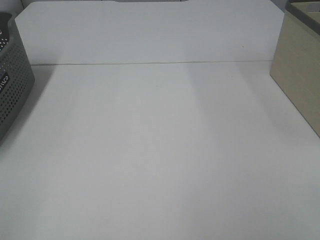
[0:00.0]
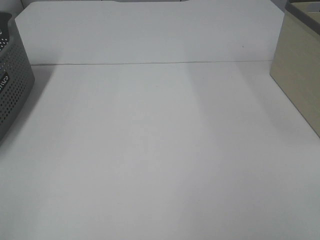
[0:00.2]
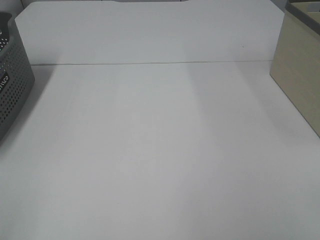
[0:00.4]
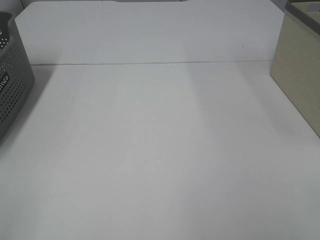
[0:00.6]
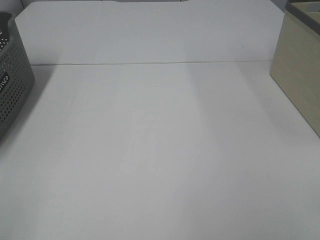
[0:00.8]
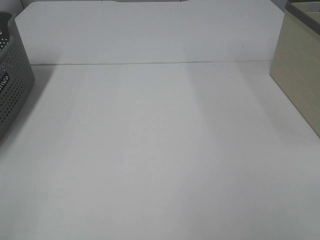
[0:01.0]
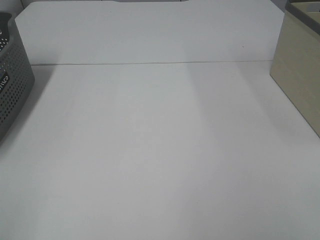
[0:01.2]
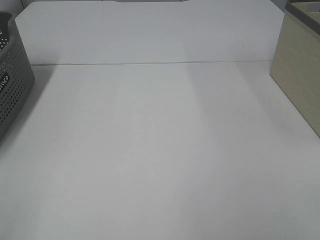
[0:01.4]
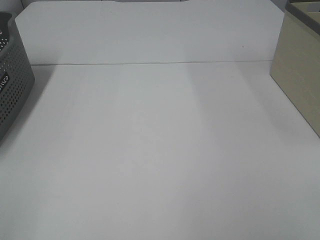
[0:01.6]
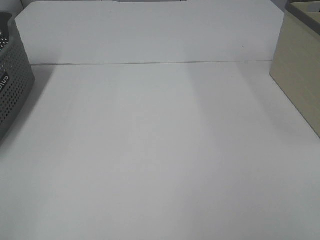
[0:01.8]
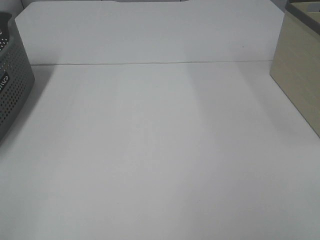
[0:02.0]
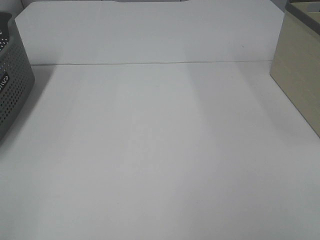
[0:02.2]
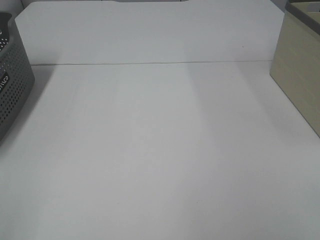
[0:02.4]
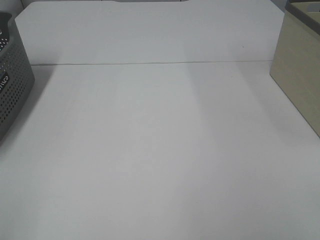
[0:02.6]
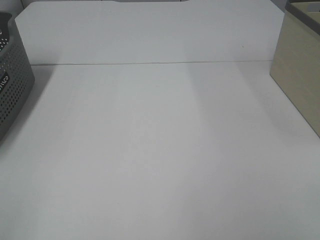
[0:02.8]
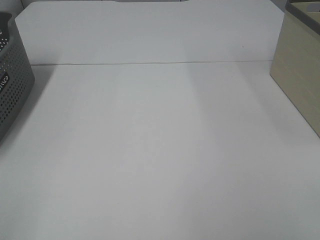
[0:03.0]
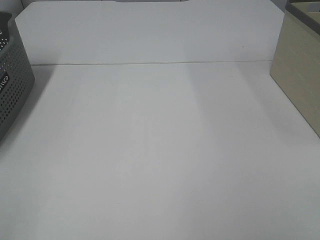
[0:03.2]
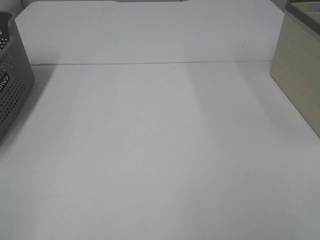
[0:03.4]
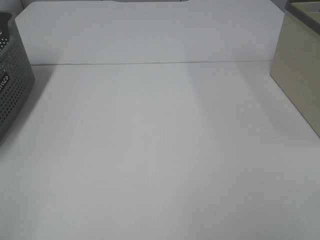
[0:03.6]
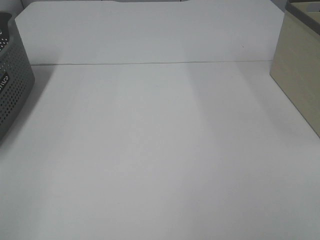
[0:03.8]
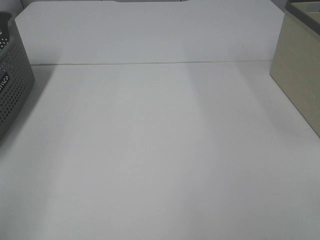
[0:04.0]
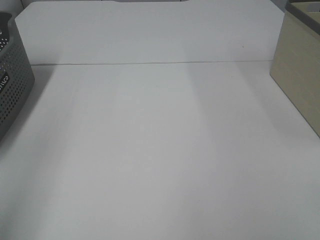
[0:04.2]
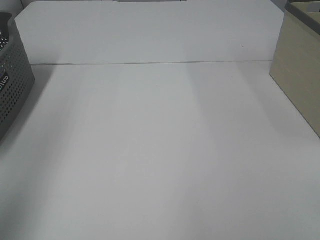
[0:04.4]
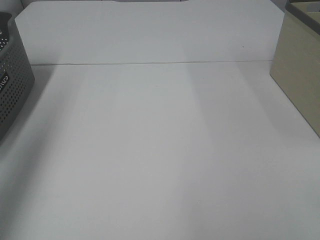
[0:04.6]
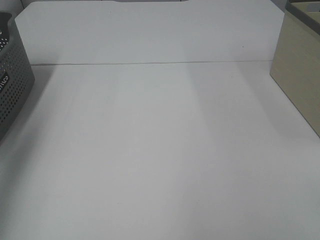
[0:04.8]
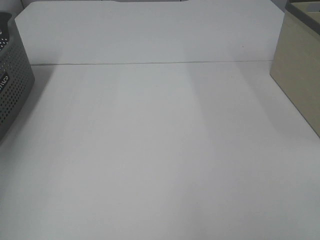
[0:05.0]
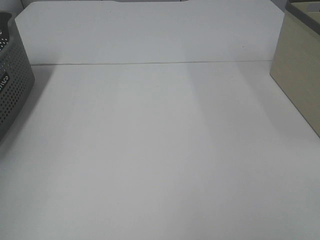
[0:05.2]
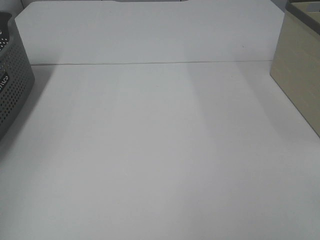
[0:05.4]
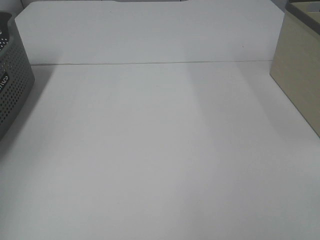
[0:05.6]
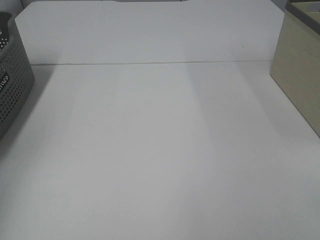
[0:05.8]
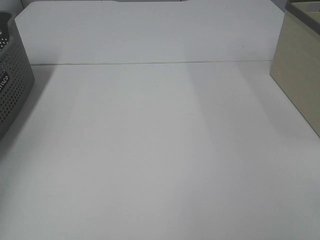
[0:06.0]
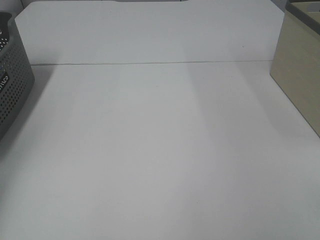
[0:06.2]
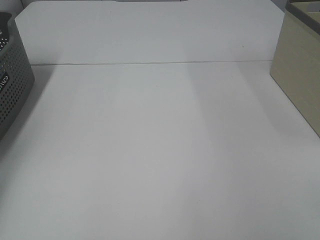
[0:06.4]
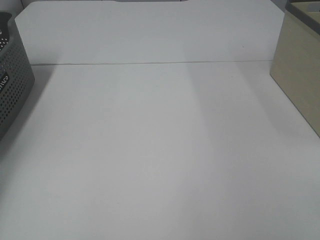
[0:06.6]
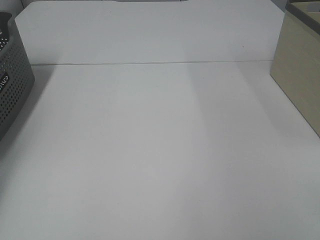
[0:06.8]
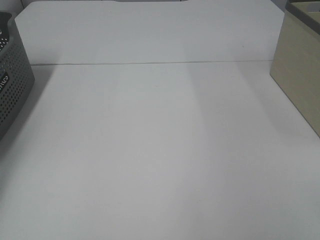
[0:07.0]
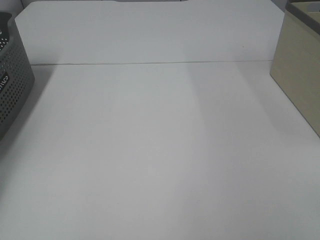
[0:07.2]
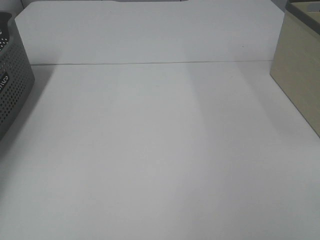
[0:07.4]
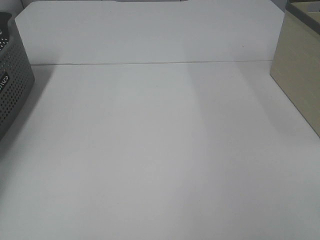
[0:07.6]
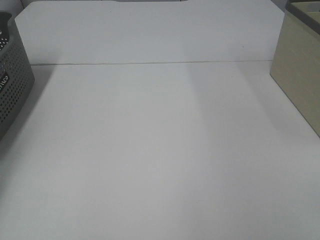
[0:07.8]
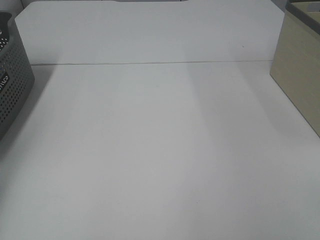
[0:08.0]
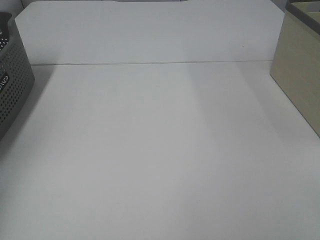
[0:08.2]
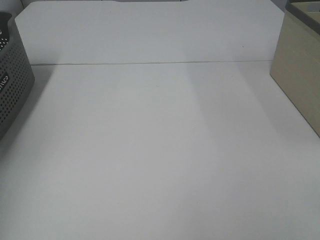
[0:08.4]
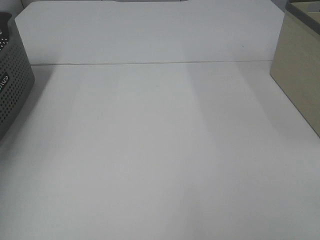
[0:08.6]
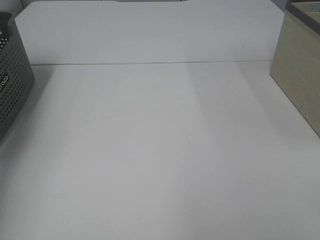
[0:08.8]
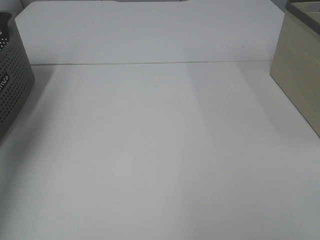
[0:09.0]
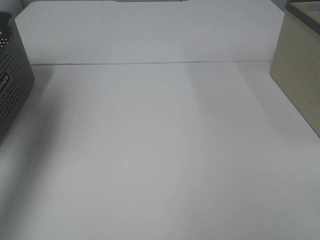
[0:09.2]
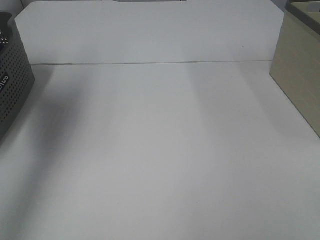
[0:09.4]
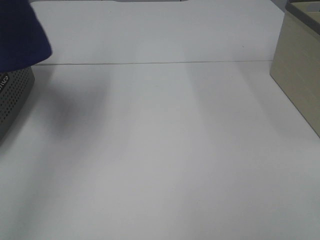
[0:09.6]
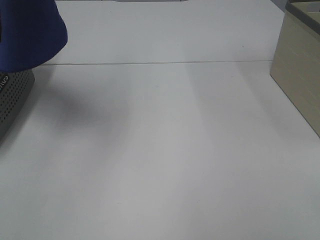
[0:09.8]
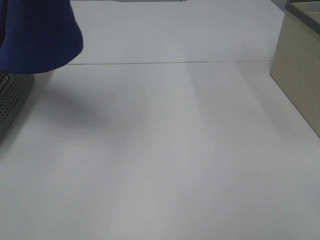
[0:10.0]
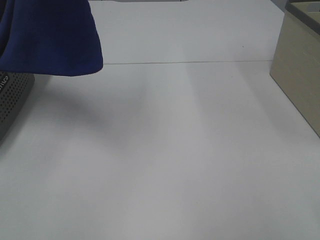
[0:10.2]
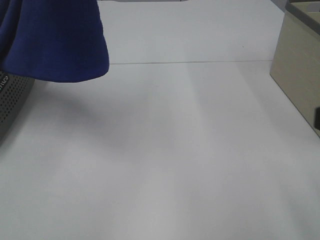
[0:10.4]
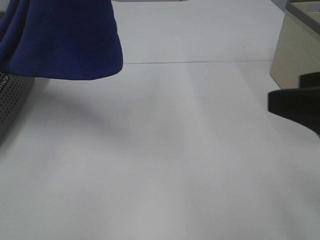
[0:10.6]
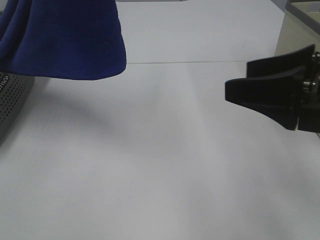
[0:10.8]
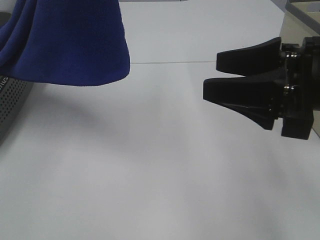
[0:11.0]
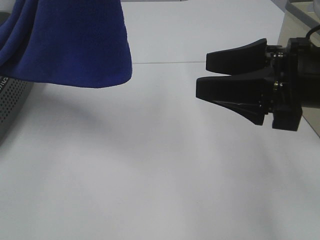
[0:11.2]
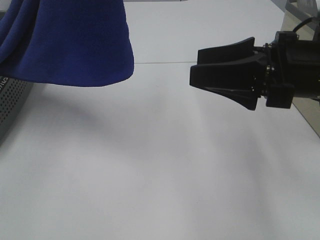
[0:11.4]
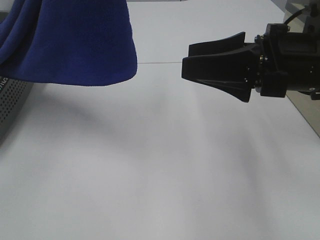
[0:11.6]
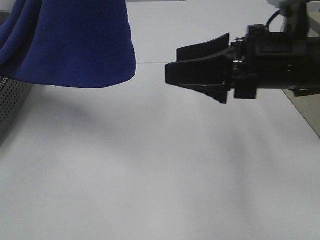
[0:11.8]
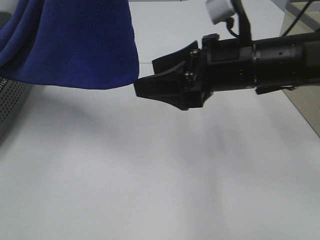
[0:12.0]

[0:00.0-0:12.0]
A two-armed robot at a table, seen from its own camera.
Task of the whole recording: Remove the towel and place it.
0:00.0 to 0:03.0: The two grippers keep their place.
0:03.0 to 0:04.4: The left gripper travels forward and upward by some 20 cm.
0:04.4 to 0:06.0: The left gripper goes roughly 35 cm forward, downward and to the left.
0:07.6 to 0:09.0: The left gripper heads upward, covering approximately 30 cm.
0:09.0 to 0:10.4: The right gripper is displaced forward by roughly 10 cm. Meanwhile the left gripper heads to the right, covering some 25 cm.
0:10.4 to 0:12.0: The right gripper heads forward, to the left and downward, covering about 25 cm.

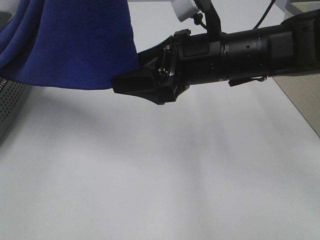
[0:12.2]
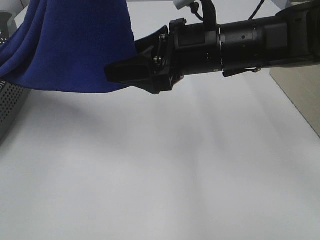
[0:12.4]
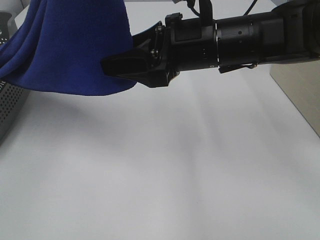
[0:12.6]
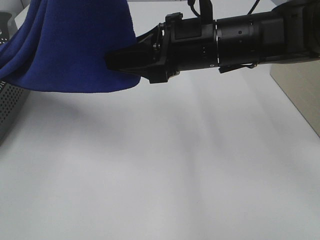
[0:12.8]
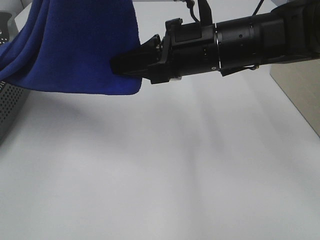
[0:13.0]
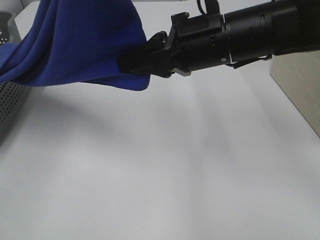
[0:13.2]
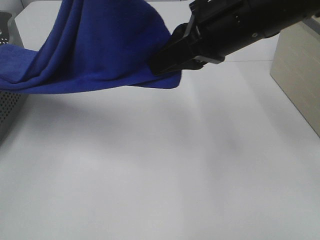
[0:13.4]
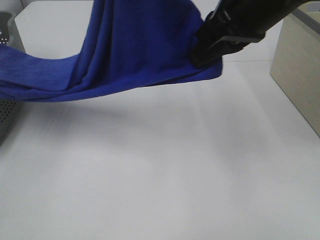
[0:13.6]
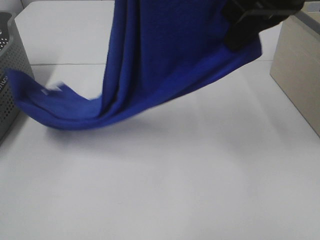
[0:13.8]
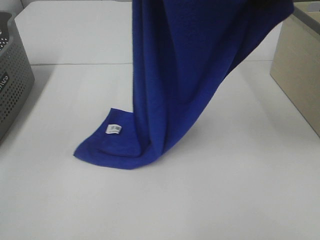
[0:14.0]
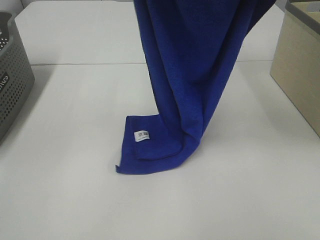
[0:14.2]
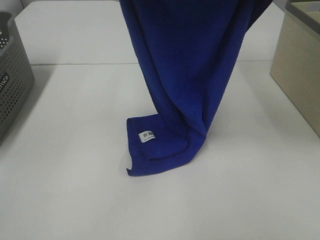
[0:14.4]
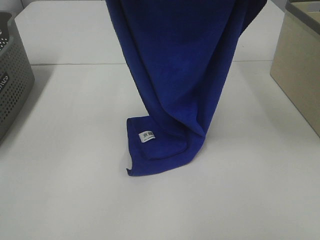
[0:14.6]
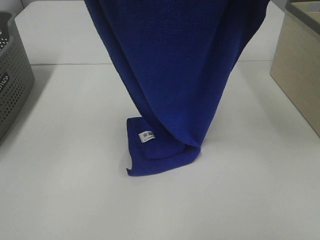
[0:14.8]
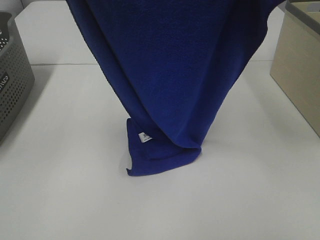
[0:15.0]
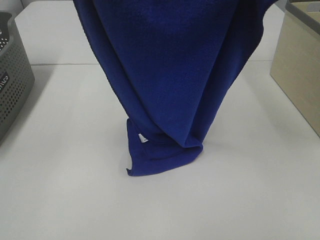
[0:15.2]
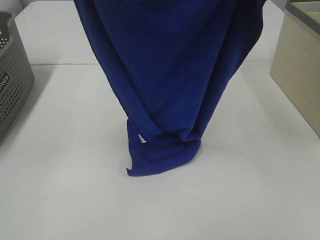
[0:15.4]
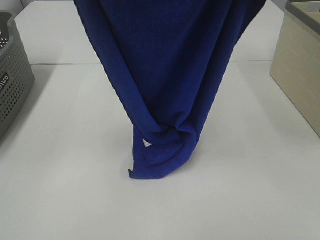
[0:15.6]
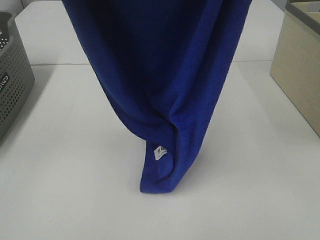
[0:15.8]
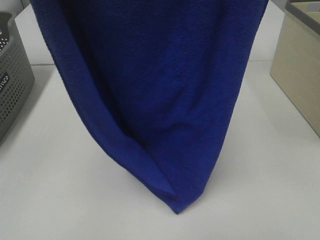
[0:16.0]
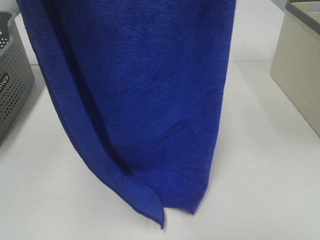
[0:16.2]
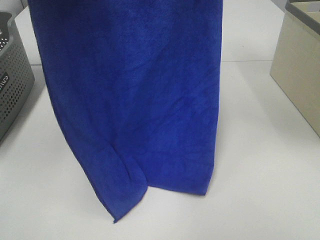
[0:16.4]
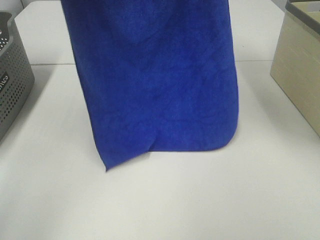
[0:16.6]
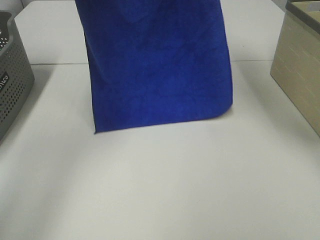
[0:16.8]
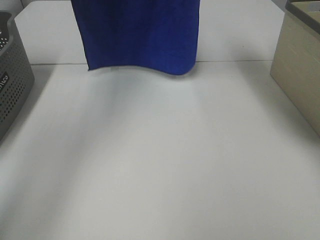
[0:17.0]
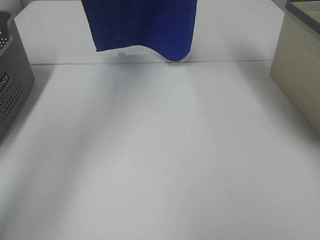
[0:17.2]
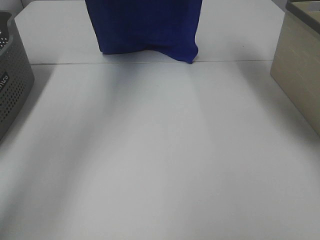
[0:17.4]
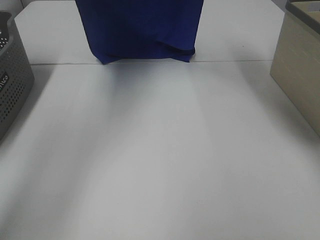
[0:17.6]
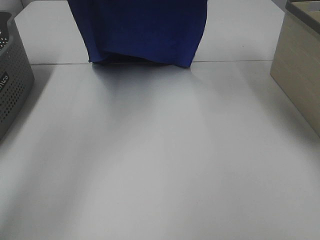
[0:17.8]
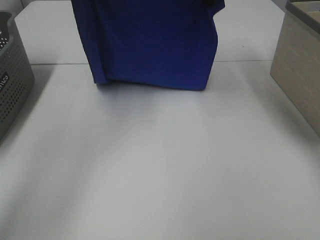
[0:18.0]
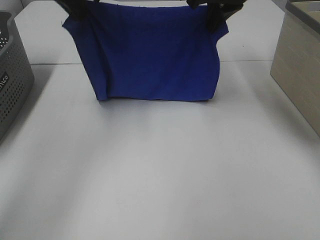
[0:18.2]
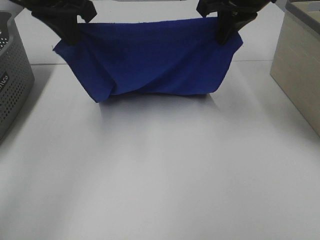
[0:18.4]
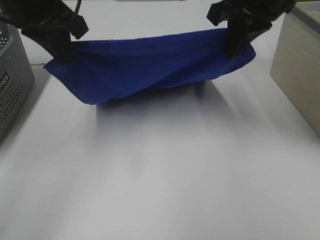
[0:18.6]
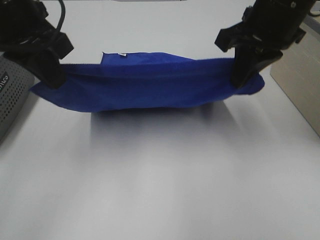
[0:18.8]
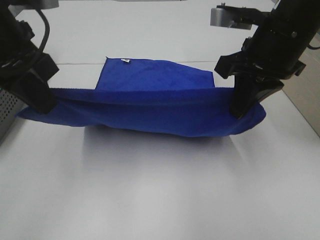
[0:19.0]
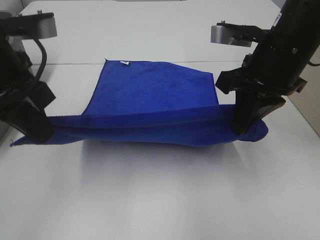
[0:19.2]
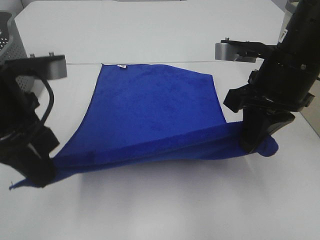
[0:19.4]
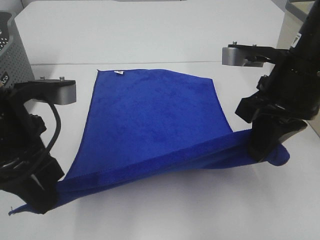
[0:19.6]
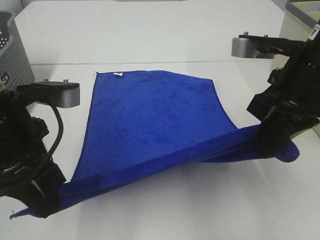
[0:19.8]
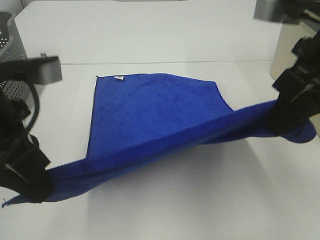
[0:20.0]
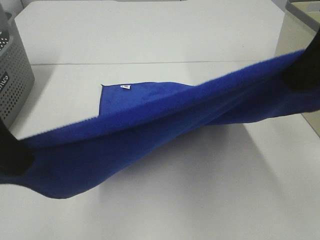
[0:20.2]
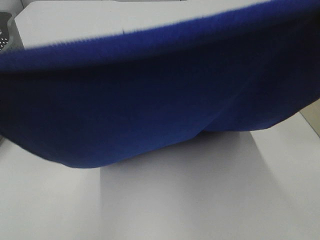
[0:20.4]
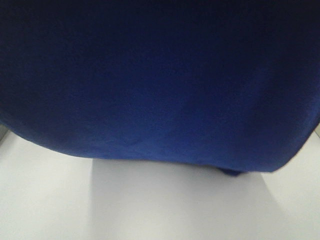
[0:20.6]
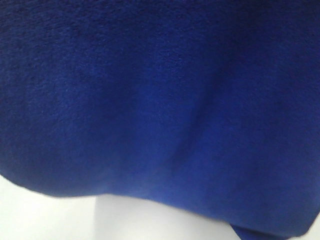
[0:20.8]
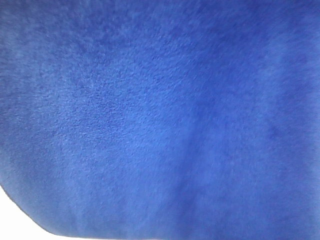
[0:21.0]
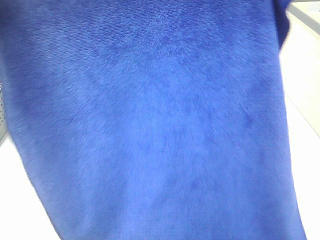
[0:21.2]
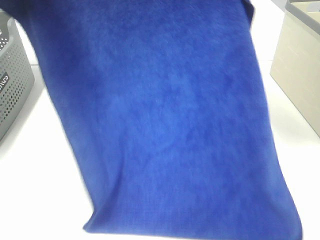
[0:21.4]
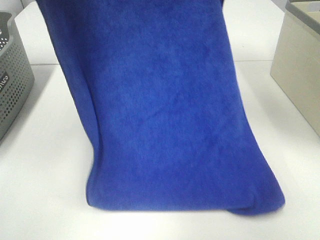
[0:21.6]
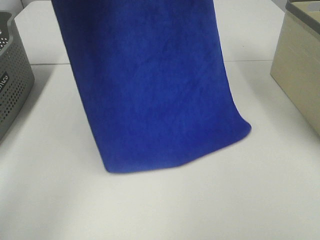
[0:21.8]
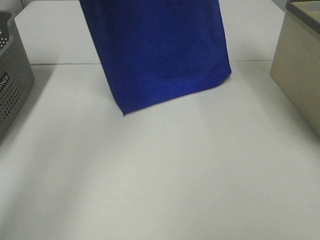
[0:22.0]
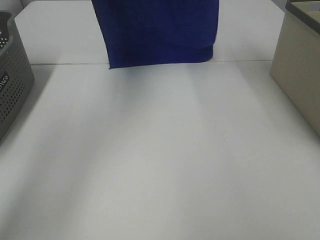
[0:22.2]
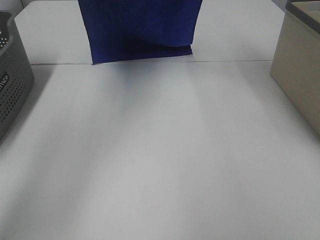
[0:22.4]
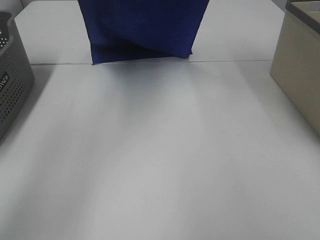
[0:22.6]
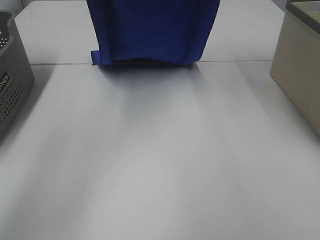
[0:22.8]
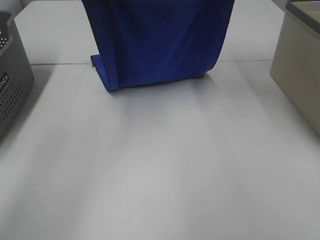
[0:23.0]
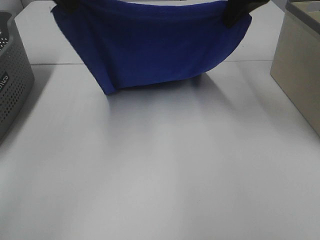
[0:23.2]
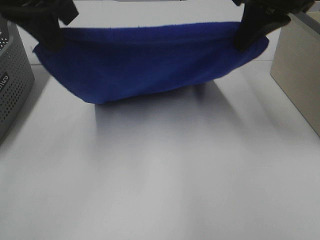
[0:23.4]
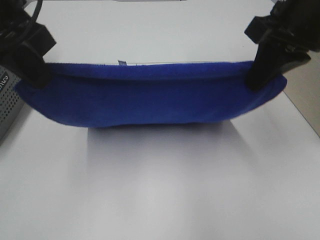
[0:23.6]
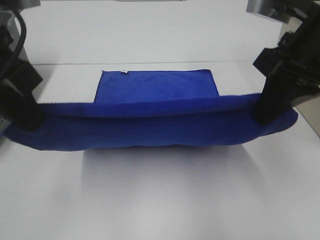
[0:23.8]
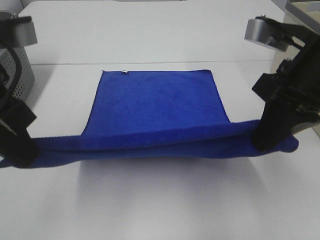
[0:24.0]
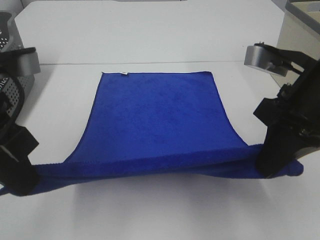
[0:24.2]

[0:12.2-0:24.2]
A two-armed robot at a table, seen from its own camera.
Task of the whole recording: Remove the towel and place it.
Step, 0:13.6 to 0:21.8: Left hand: spread the blue towel flat on the table.
Step, 0:13.6 to 0:21.8: Right hand: spread the blue towel flat on the table.
0:12.2 to 0:13.8: The right gripper heads upward and to the right, covering some 15 cm, and closes. Meanwhile the left gripper shifts by some 5 cm.
0:13.8 to 0:15.2: The right gripper moves upward, approximately 5 cm, while the left gripper changes place by approximately 5 cm.
0:15.2 to 0:16.6: Both grippers move forward, about 15 cm.
0:16.6 to 0:18.2: Both grippers travel together downward, roughly 15 cm.
0:18.2 to 0:19.8: The left gripper heads backward and downward, covering approximately 25 cm, while the right gripper is displaced backward by about 20 cm.
0:19.8 to 0:21.2: Both grippers move upward, some 20 cm.
0:21.2 to 0:22.6: Both grippers move forward, approximately 25 cm.
0:22.6 to 0:24.2: Both grippers move backward and downward, roughly 30 cm.
